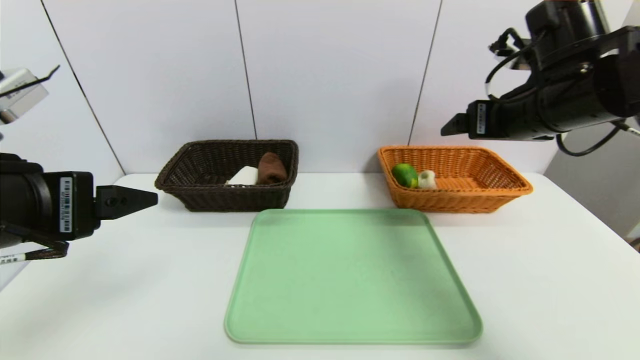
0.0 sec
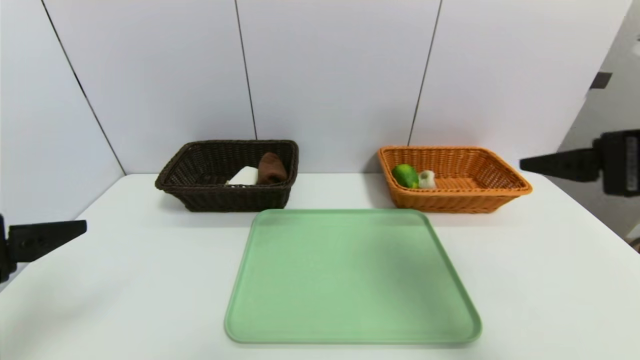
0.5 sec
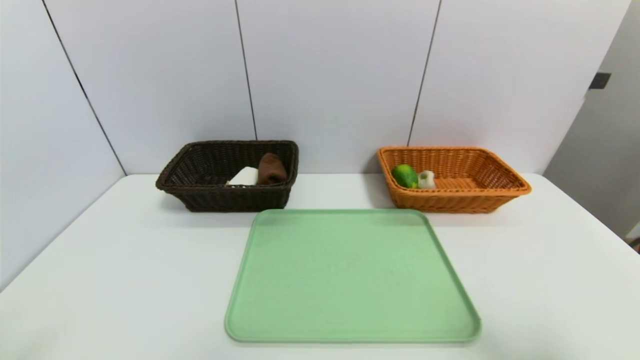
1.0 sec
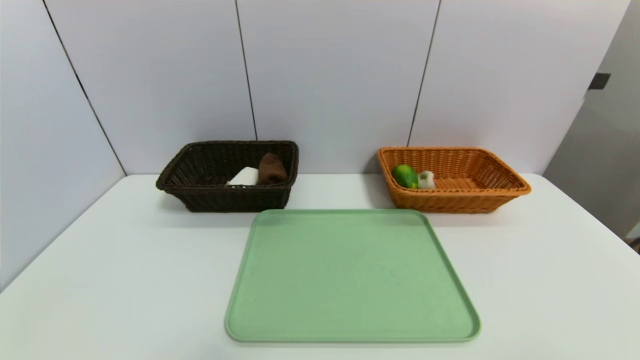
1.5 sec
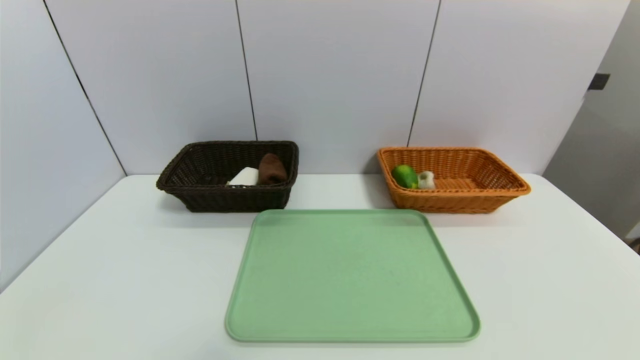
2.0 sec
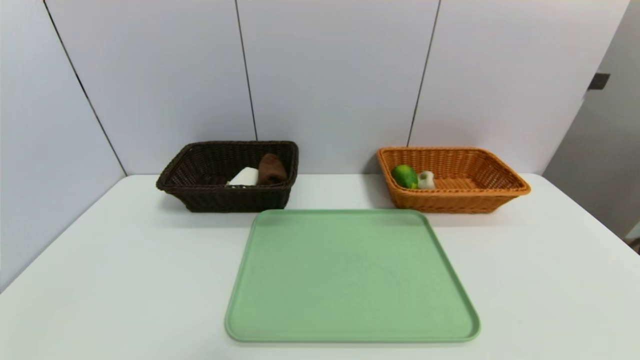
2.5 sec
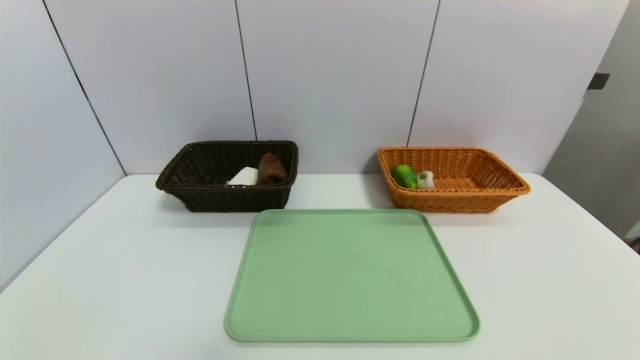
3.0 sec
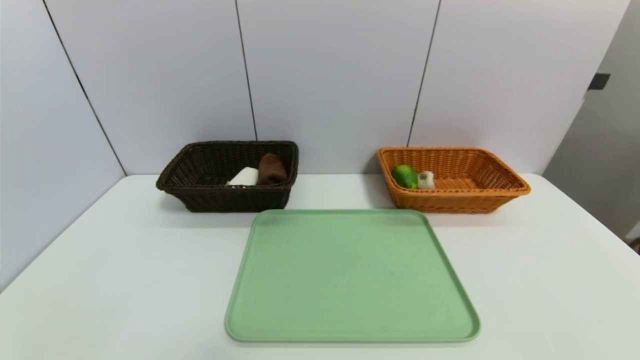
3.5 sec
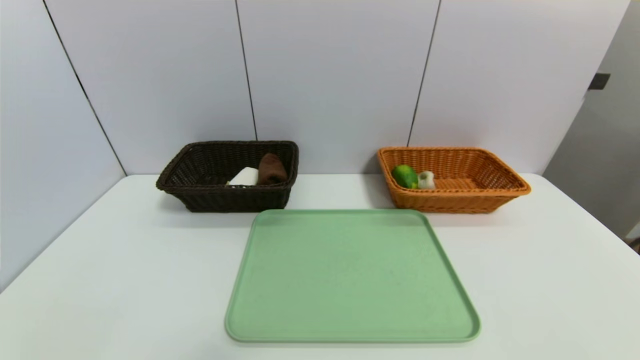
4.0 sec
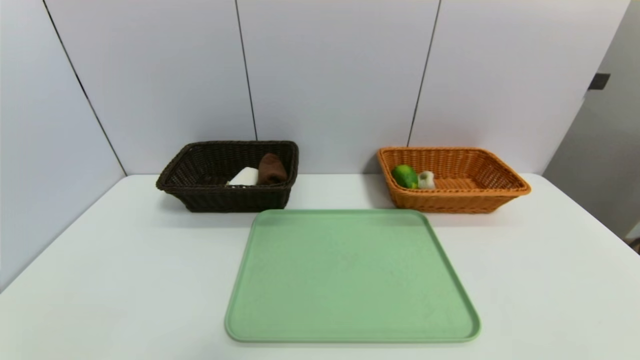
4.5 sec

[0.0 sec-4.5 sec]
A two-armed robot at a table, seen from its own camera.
Task of the whole recording: place the food in the right basket with the right gripper, and place the non food items in the left basket with the left gripper.
0.0 sec to 2.0 sec: The right gripper travels backward by approximately 35 cm, while the left gripper is displaced backward and downward by approximately 25 cm.

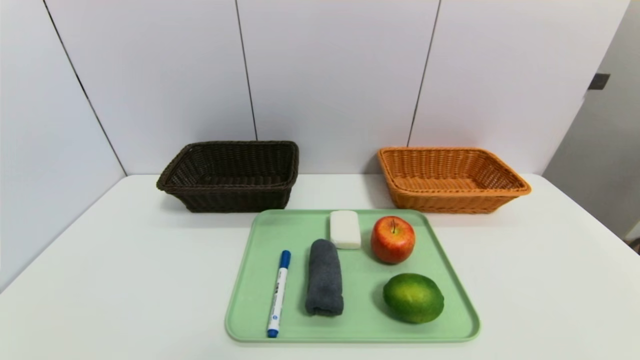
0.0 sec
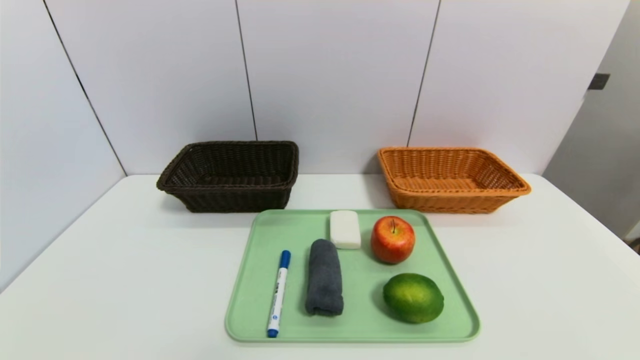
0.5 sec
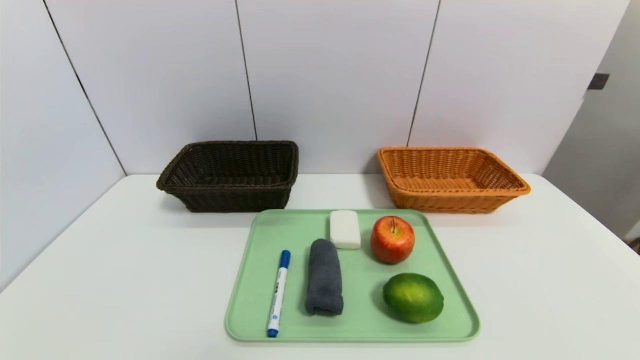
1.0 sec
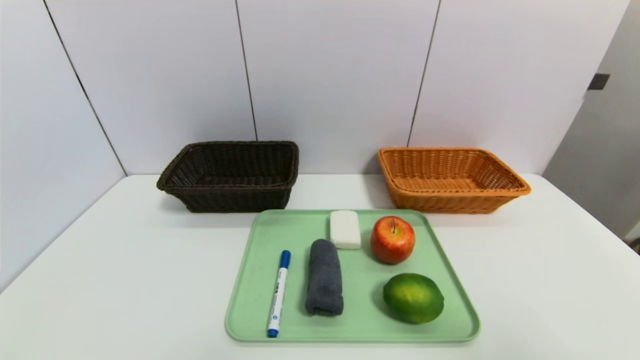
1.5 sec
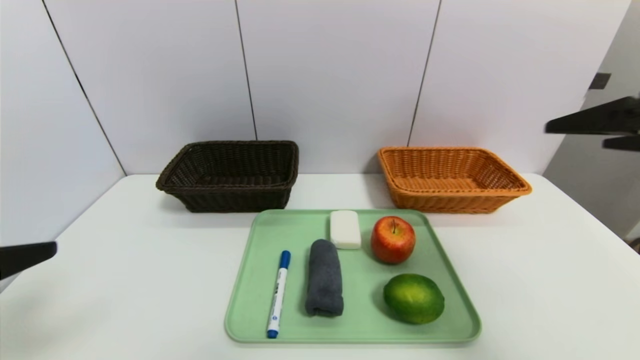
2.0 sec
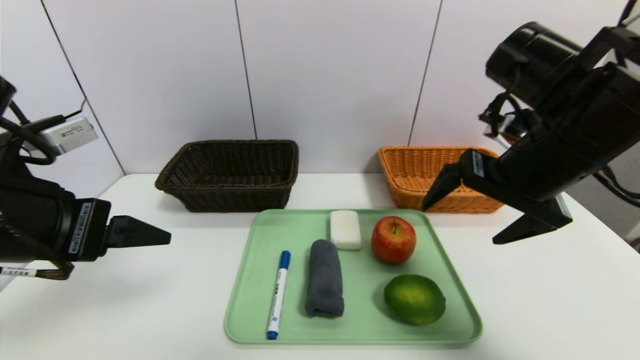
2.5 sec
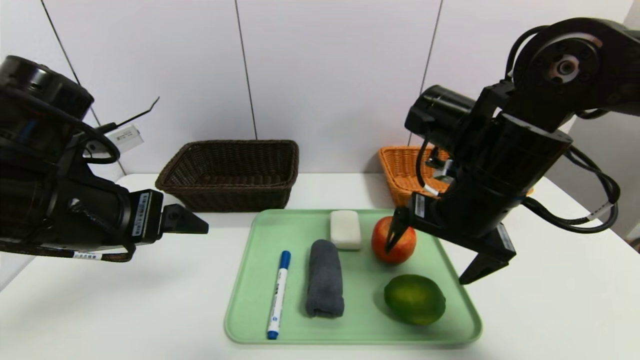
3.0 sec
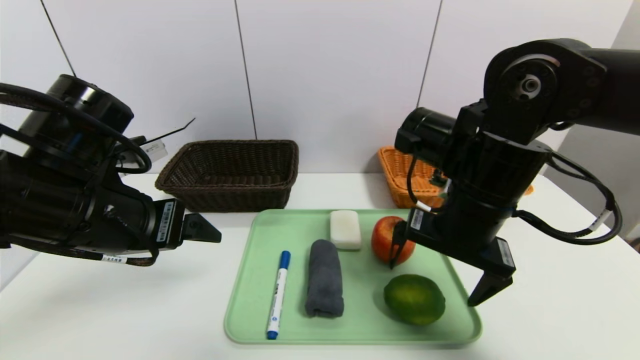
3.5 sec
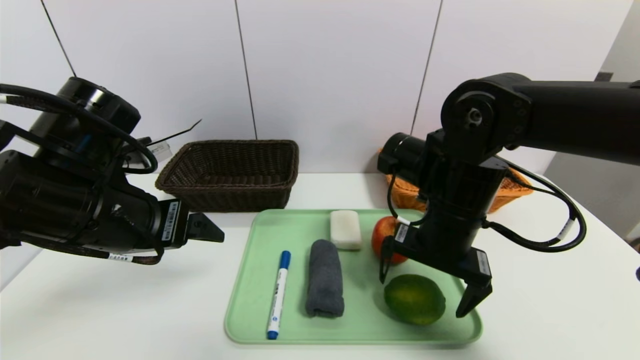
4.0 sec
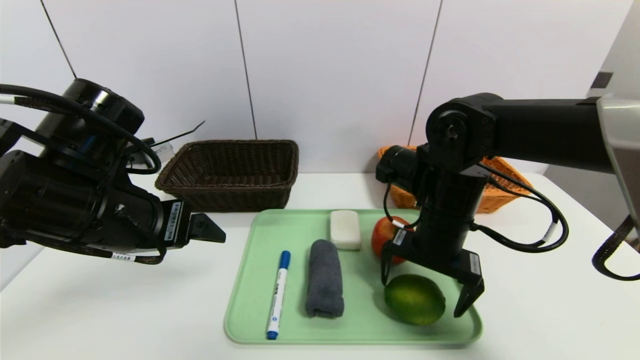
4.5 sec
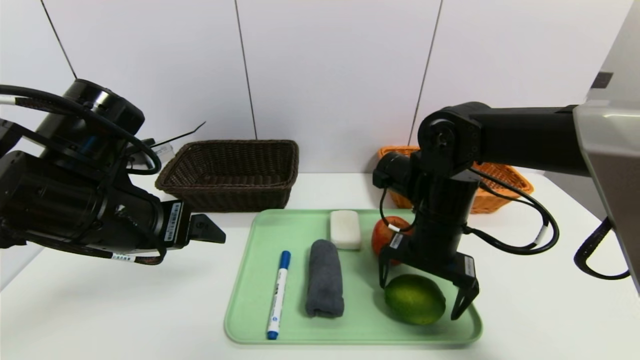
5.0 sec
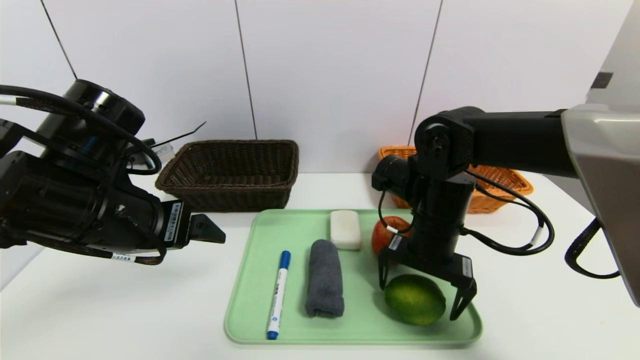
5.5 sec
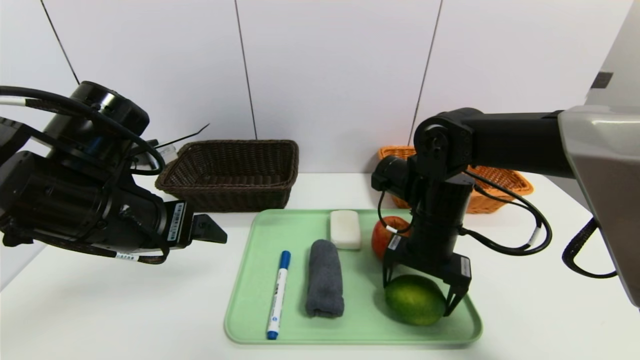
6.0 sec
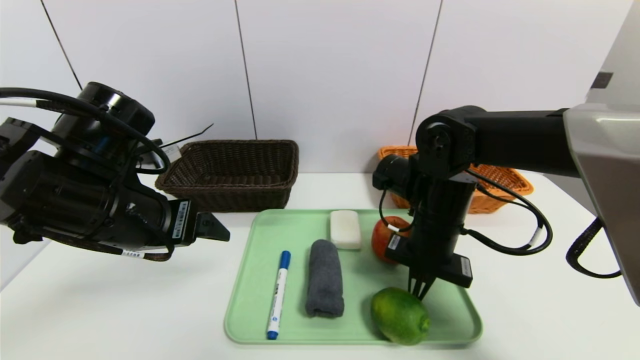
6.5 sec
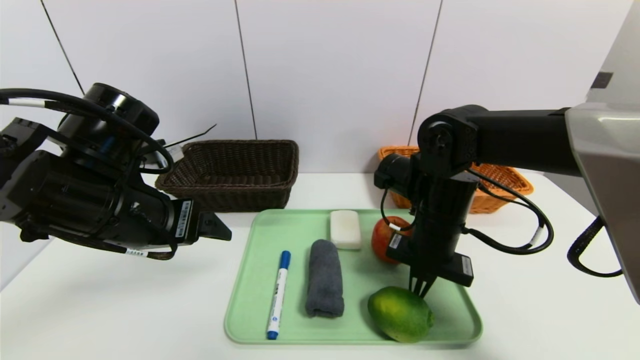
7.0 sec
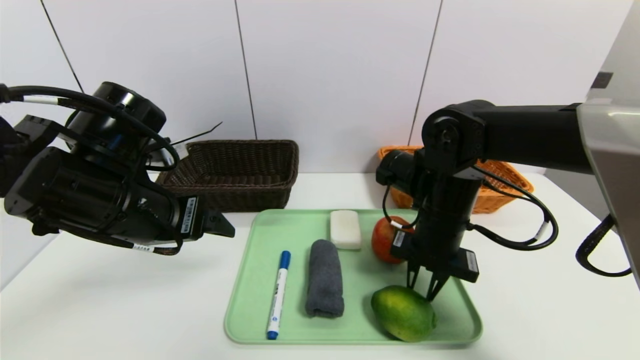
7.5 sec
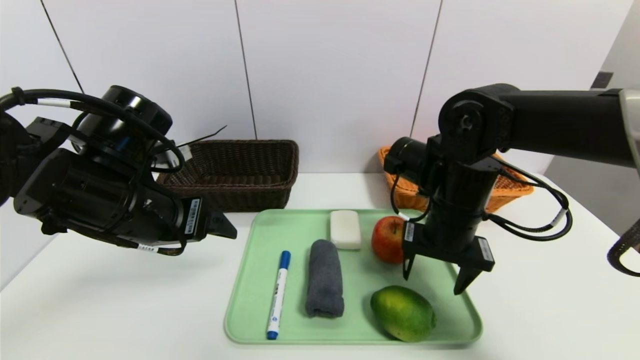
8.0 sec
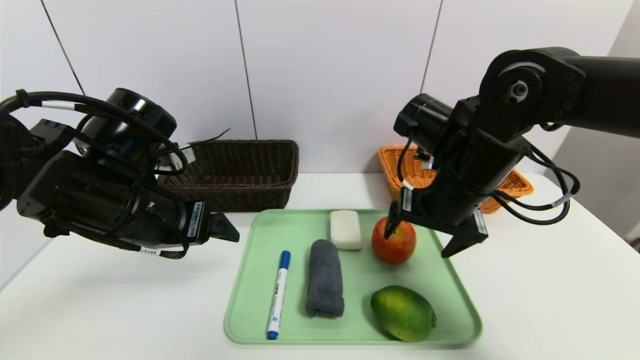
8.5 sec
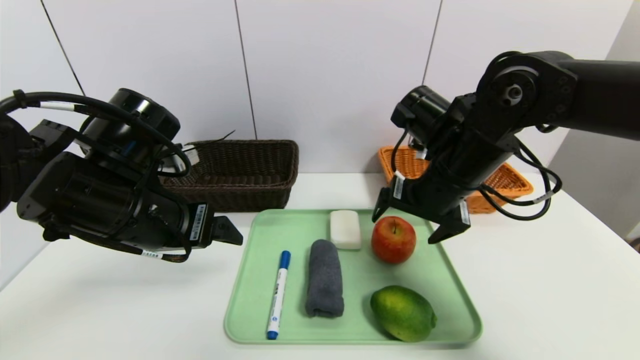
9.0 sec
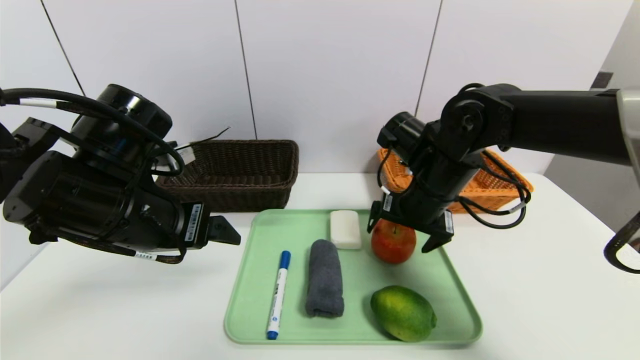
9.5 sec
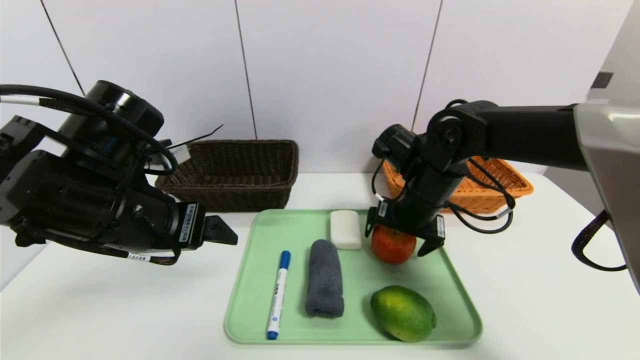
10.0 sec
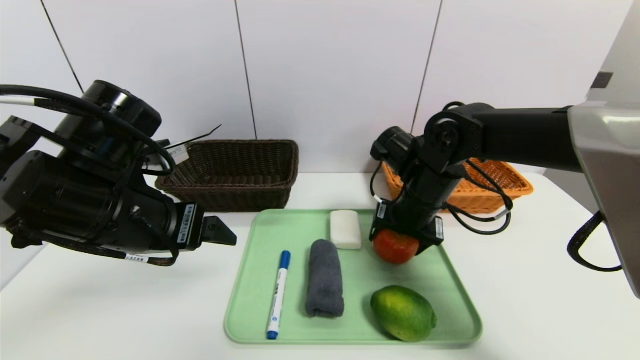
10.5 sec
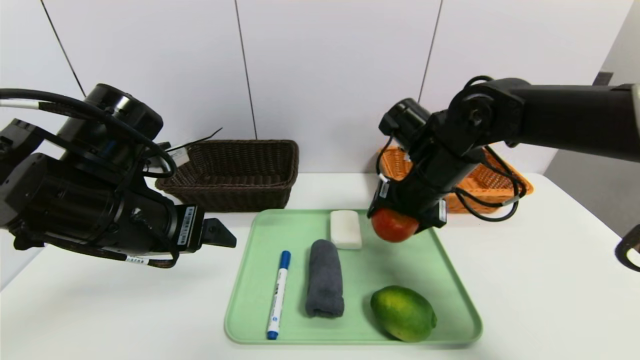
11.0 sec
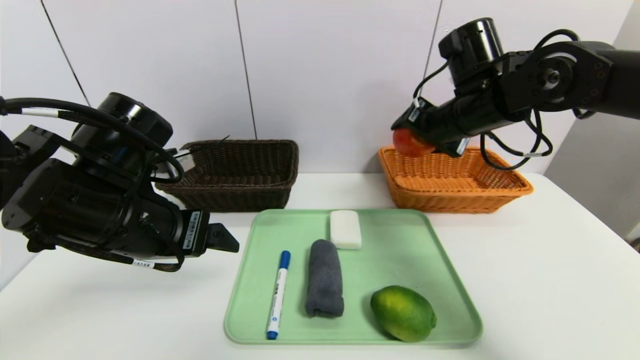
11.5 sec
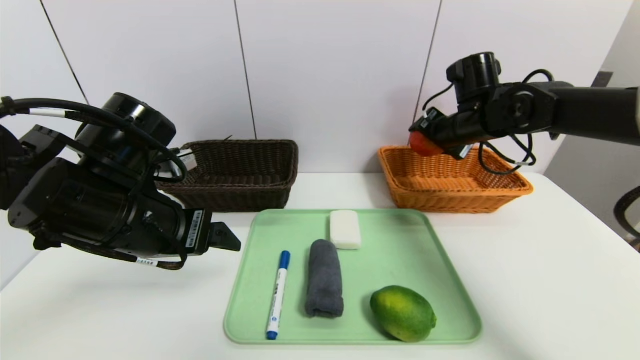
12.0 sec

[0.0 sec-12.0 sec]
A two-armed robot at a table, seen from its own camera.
Task of the whole recording: place the food in the right basket with the right gripper, and place the non food items in the left basket with the left gripper.
0.0 sec to 2.0 sec: The two grippers go roughly 30 cm upward and forward.
2.0 sec to 4.0 sec: The left gripper goes some 15 cm forward and to the right, while the right gripper is displaced to the left, downward and forward by roughly 25 cm.
4.0 sec to 6.0 sec: The right gripper ends up roughly 5 cm from where it was.
6.0 sec to 8.0 sec: The right gripper closes, then opens again.
8.0 sec to 10.0 sec: The right gripper ends up approximately 5 cm from where it was, and opens.
10.0 sec to 12.0 sec: The right gripper goes about 15 cm to the right, forward and upward.

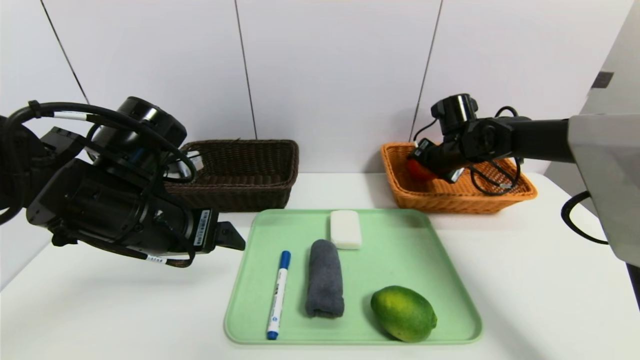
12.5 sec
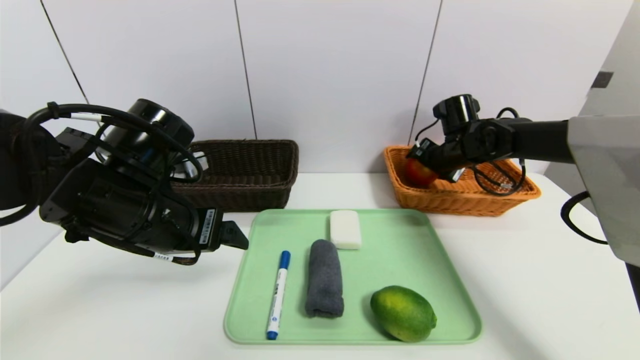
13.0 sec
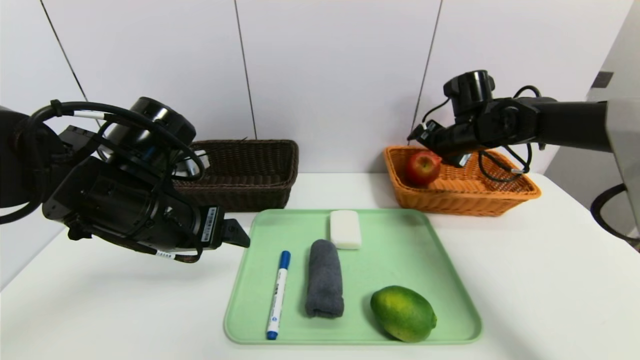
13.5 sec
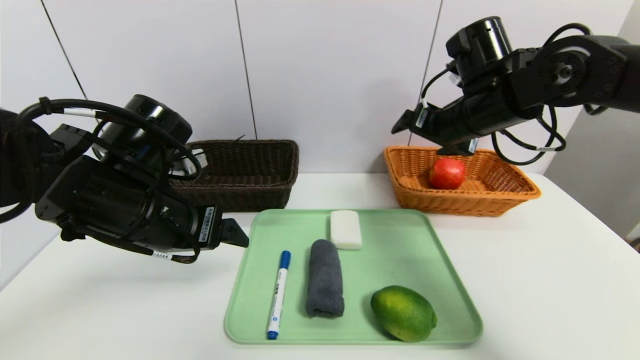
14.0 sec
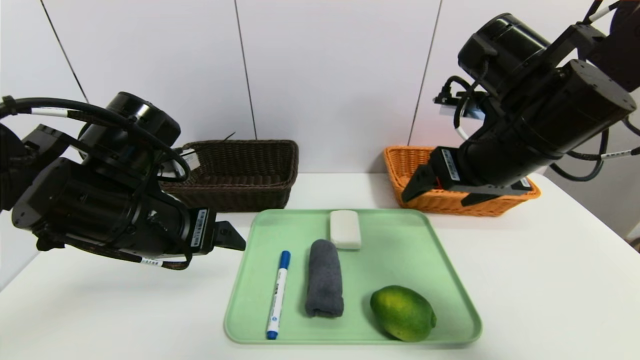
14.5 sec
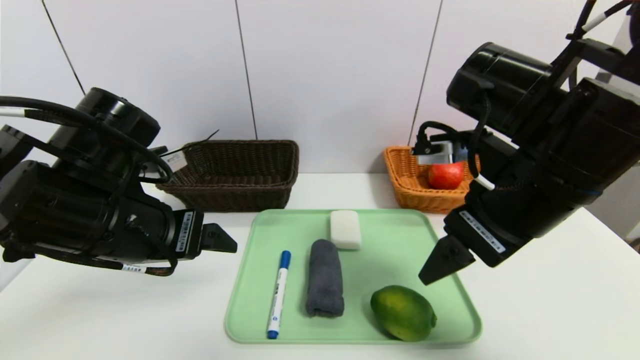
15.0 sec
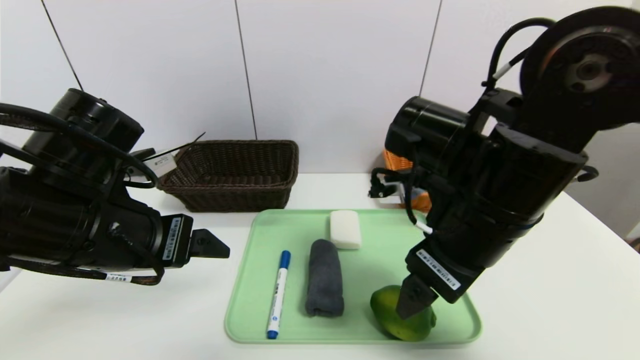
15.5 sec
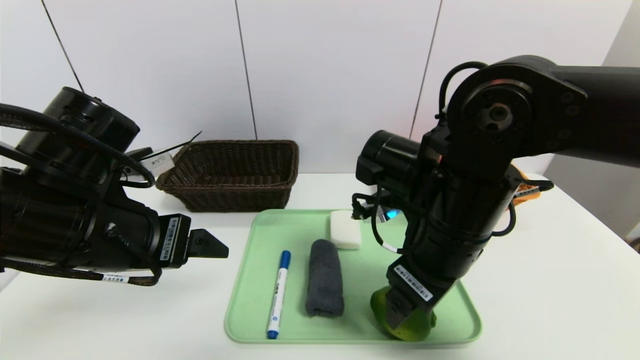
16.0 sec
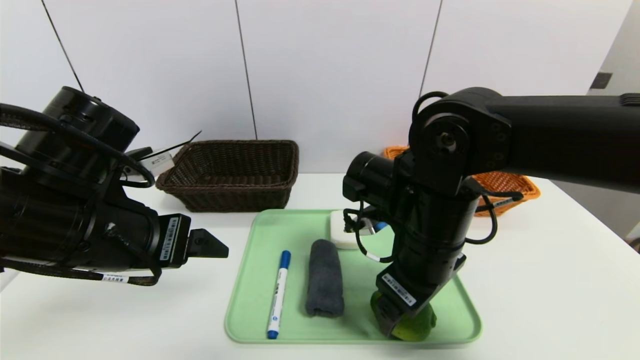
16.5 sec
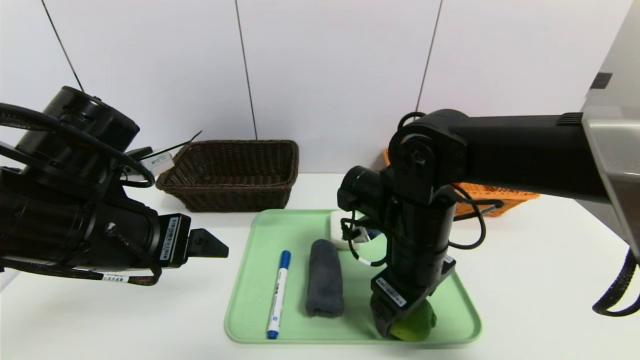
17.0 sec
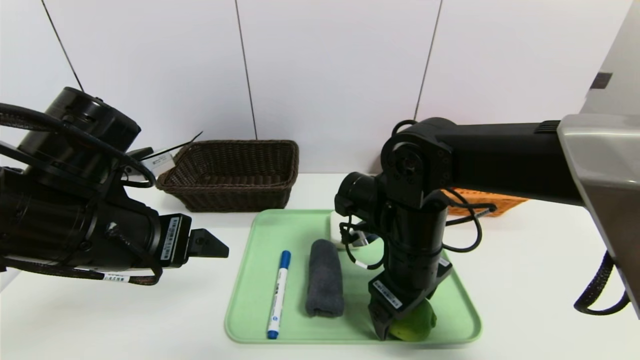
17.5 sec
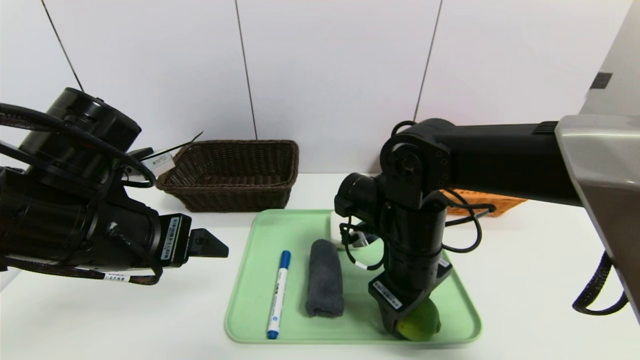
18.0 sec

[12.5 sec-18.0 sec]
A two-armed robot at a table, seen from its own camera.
Task of the whole recording: place the food in the right basket with the right gripper, and place the non food items in the left basket with the left gripper.
12.5 sec to 14.5 sec: The right gripper moves backward and upward, roughly 25 cm.
14.5 sec to 16.0 sec: The right gripper heads to the left and downward, covering approximately 10 cm.
16.0 sec to 18.0 sec: The right gripper travels downward by roughly 5 cm, and closes up.
